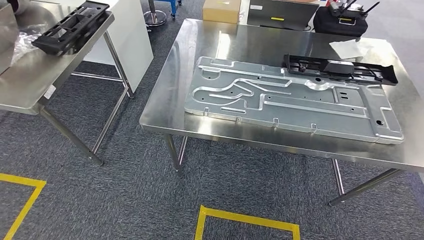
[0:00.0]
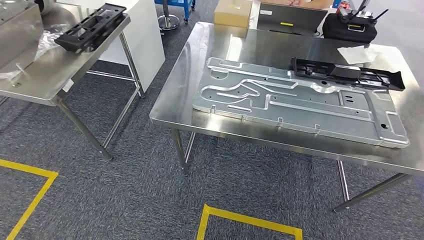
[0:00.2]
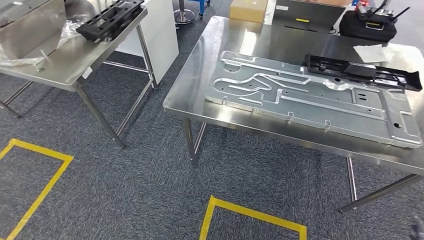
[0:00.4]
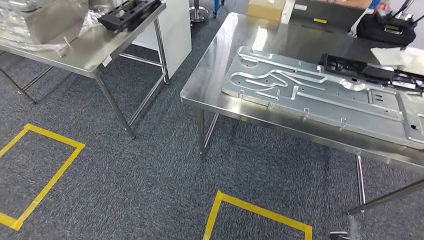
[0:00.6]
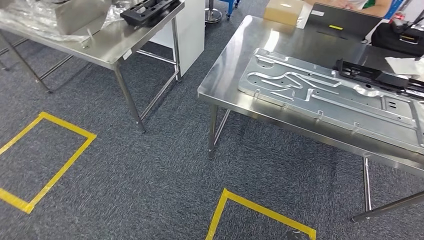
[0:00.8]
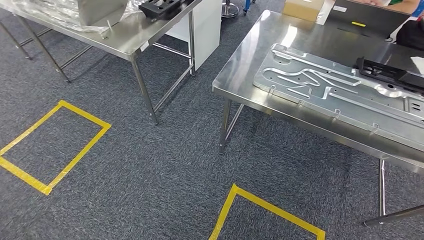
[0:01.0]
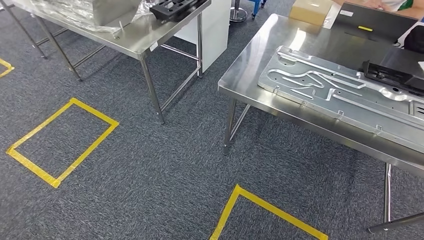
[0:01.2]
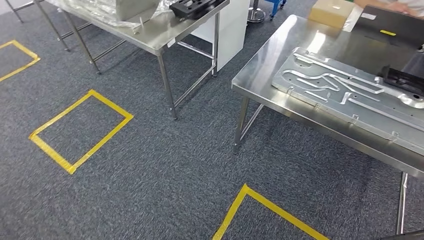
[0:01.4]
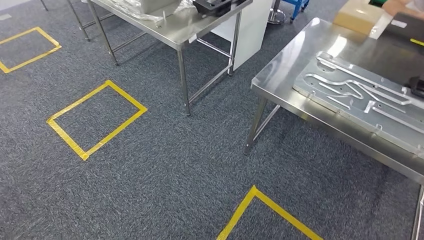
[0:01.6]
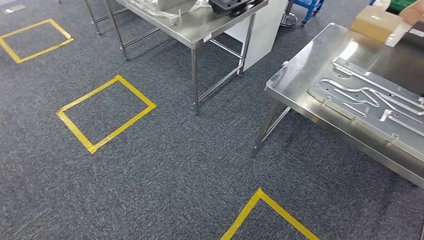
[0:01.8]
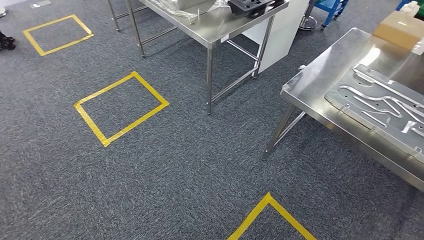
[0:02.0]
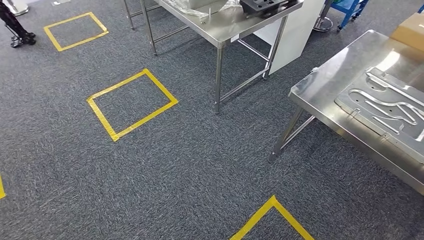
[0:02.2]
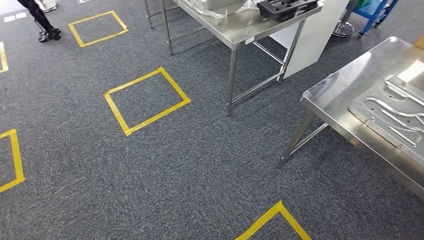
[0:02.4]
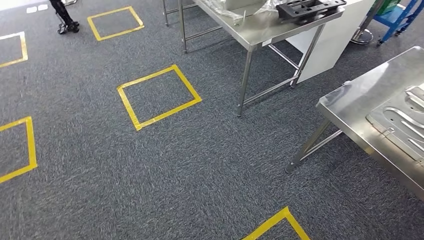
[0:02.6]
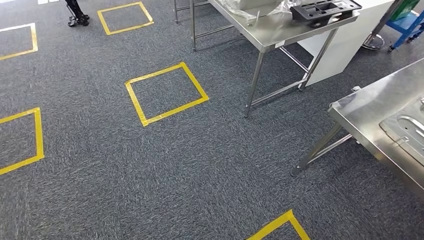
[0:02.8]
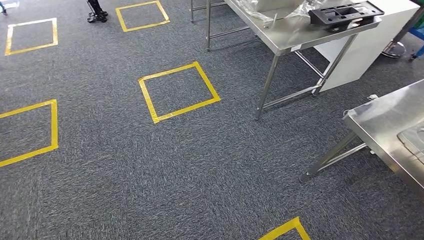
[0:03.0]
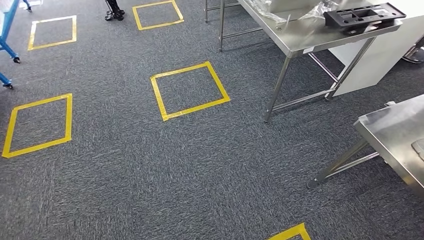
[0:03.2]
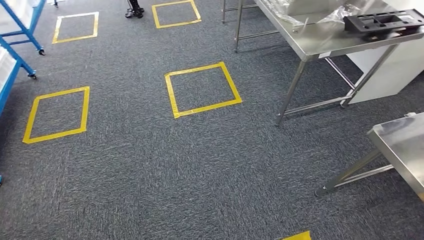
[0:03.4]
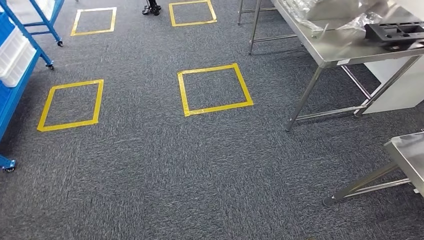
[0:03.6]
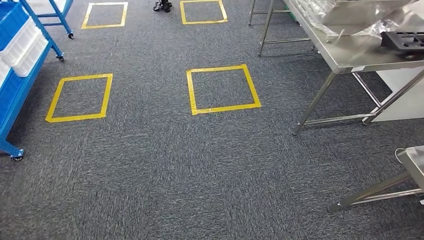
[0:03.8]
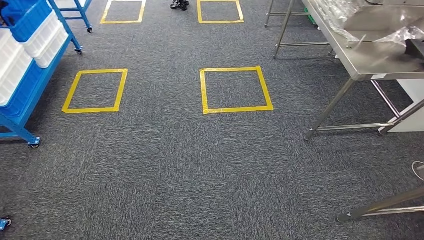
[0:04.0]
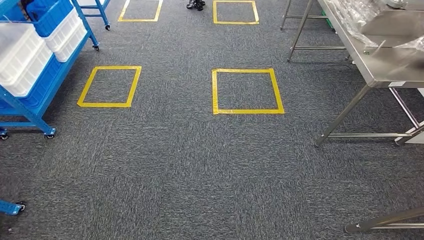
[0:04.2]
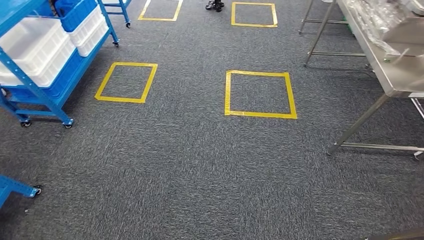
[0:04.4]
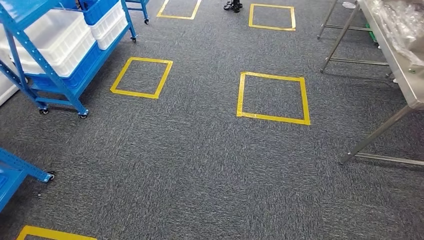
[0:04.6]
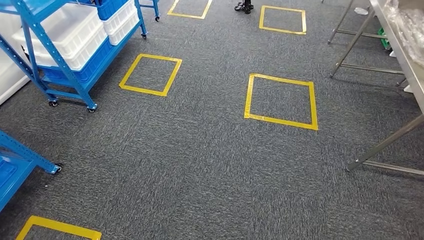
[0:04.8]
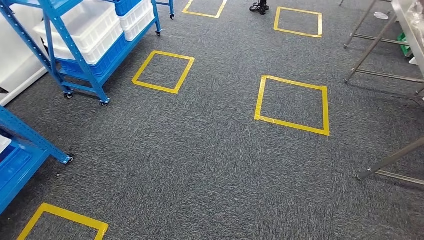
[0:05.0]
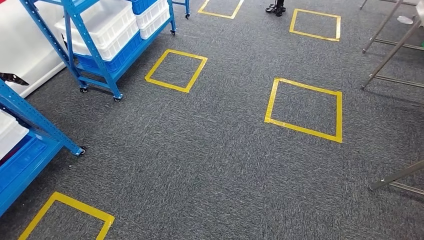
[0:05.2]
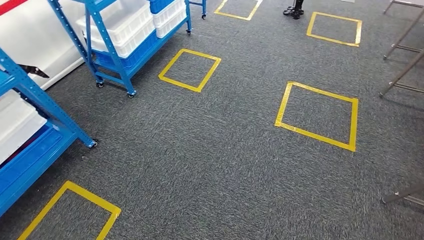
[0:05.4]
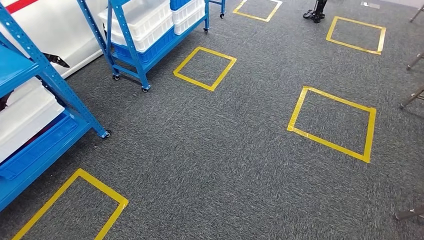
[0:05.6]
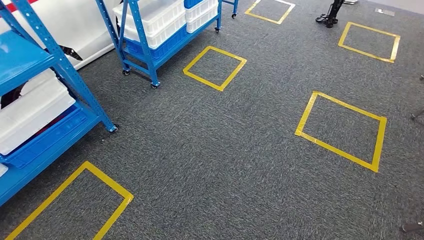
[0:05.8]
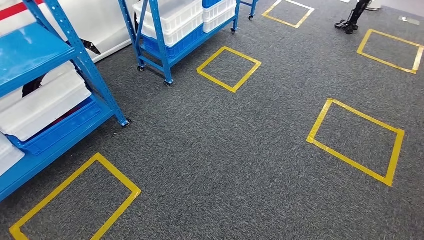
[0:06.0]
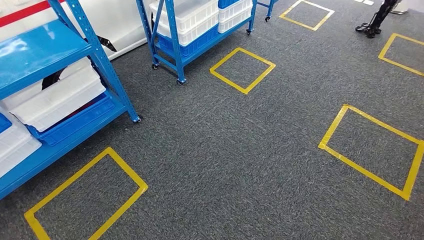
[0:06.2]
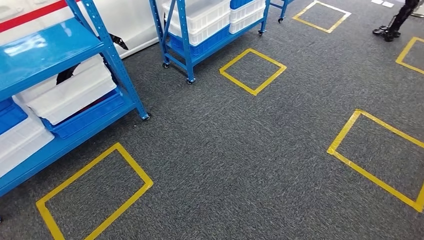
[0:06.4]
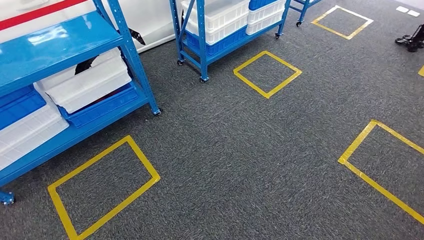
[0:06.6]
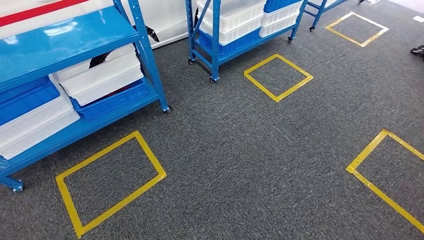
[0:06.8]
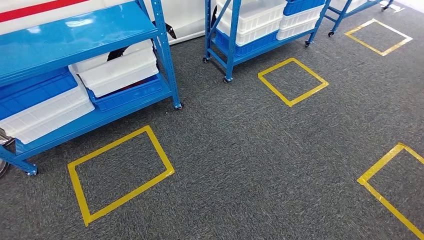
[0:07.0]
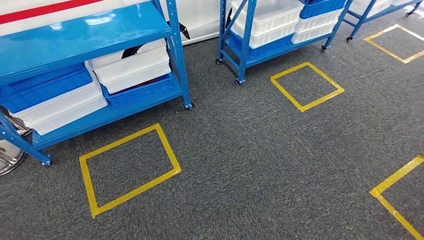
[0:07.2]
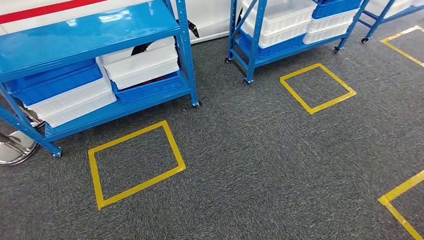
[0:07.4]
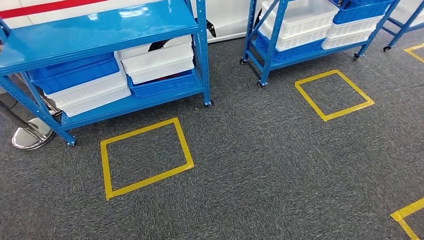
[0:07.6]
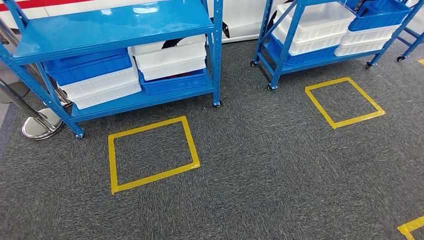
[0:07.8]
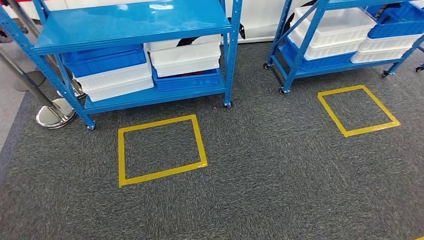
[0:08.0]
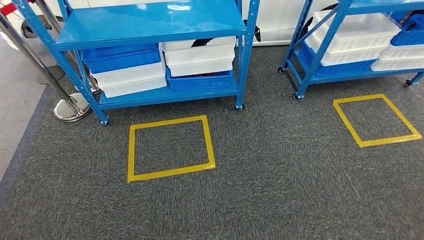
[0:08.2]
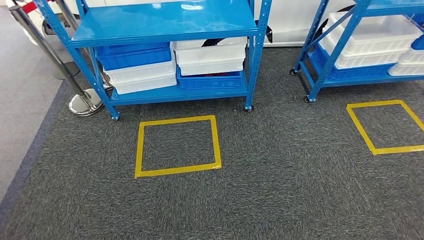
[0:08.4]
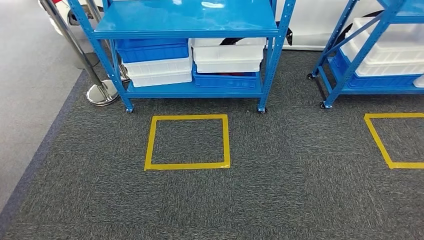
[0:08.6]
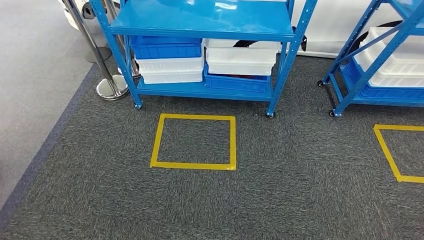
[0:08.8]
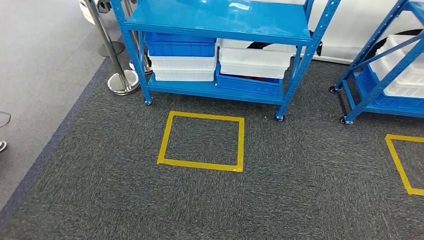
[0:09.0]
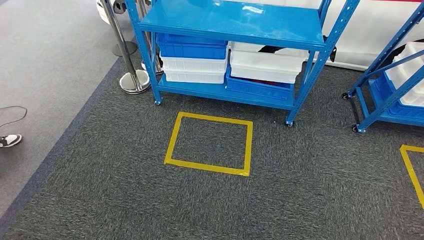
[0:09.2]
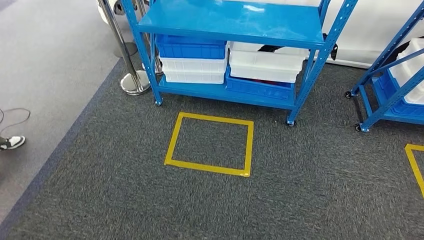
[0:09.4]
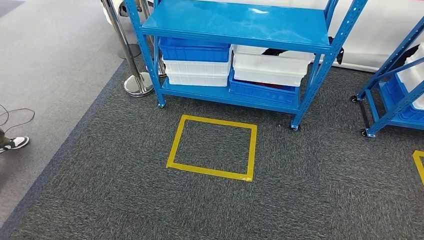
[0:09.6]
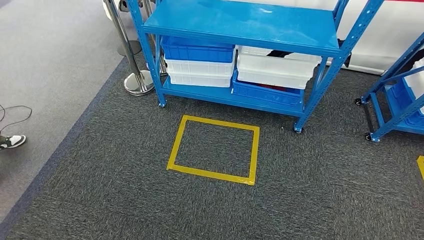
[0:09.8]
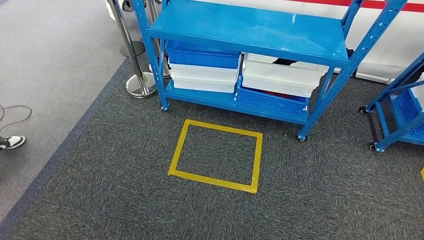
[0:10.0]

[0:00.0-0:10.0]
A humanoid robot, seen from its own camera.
Step, 0:00.0 to 0:10.0: Move to the initial position of the shelf.

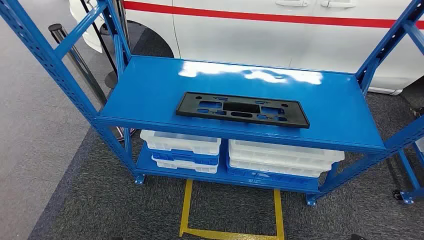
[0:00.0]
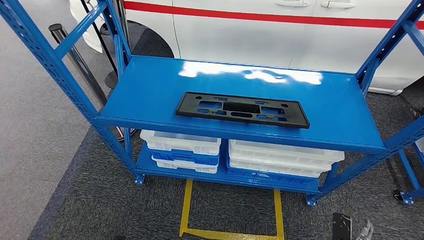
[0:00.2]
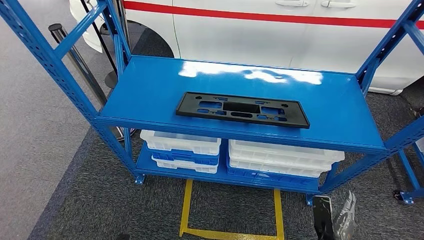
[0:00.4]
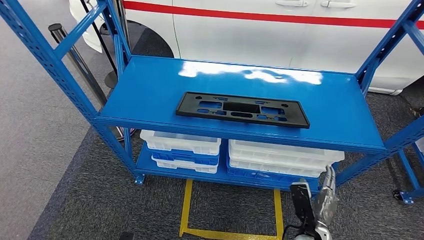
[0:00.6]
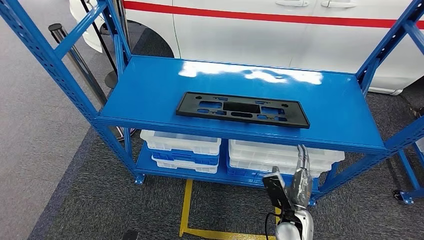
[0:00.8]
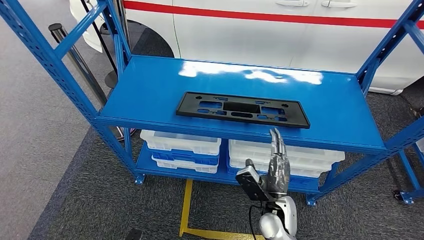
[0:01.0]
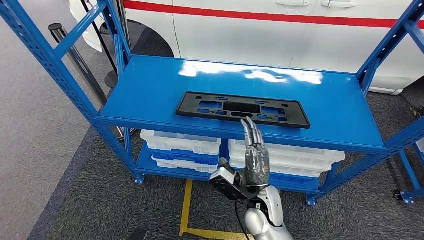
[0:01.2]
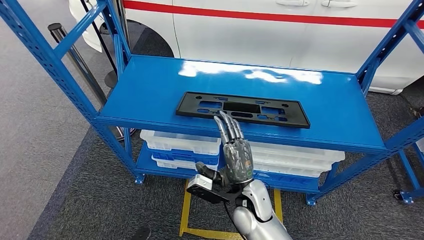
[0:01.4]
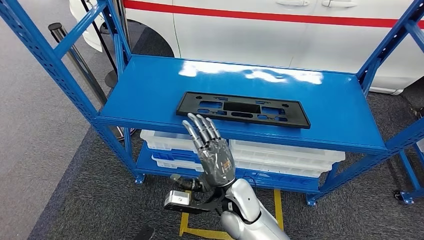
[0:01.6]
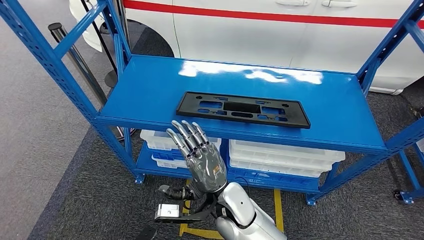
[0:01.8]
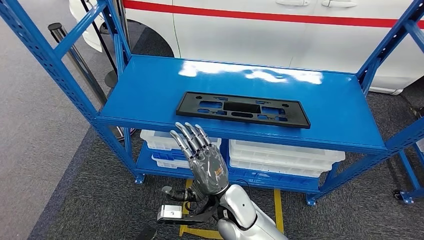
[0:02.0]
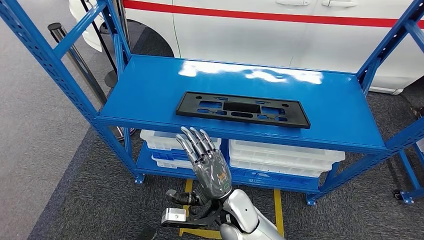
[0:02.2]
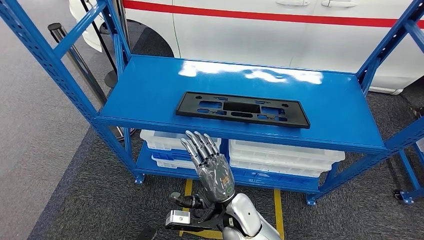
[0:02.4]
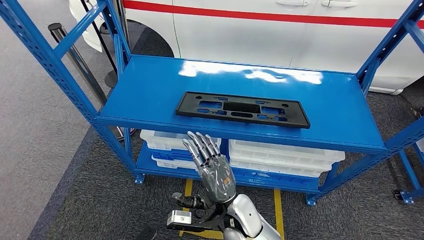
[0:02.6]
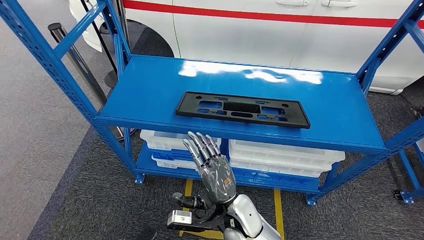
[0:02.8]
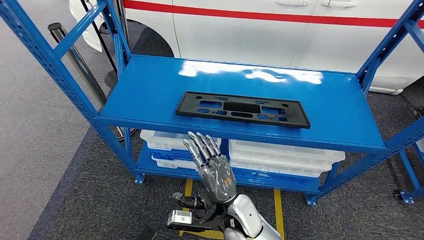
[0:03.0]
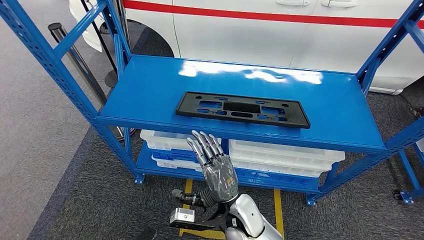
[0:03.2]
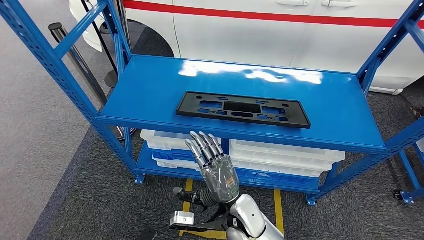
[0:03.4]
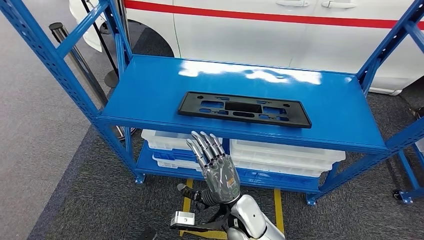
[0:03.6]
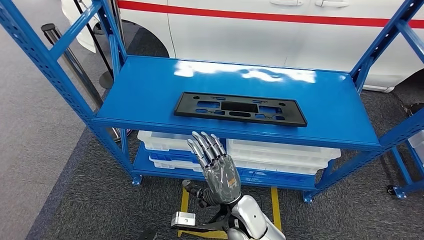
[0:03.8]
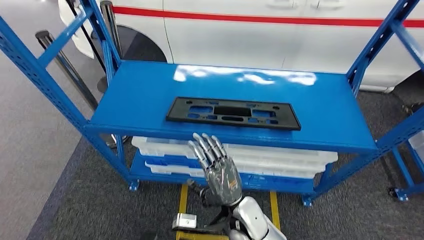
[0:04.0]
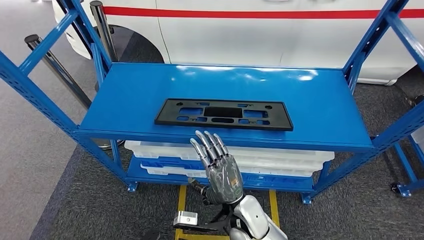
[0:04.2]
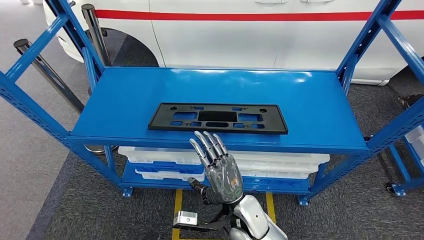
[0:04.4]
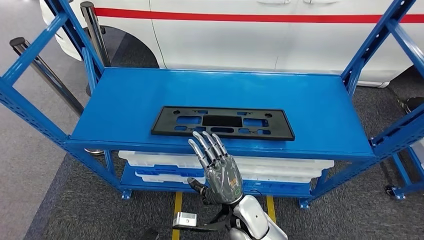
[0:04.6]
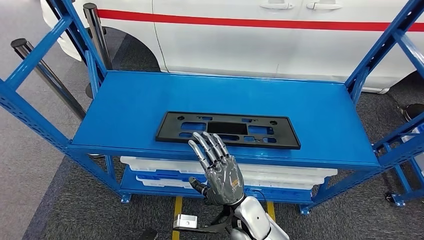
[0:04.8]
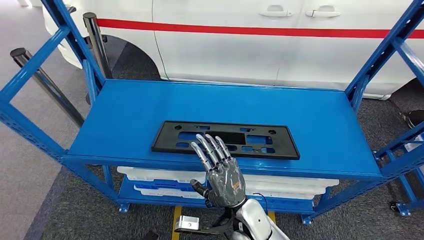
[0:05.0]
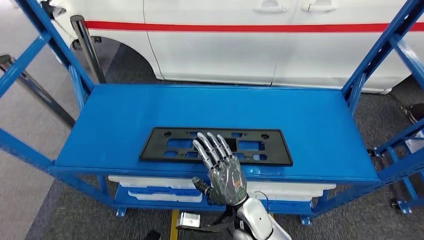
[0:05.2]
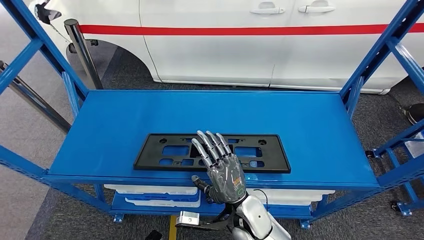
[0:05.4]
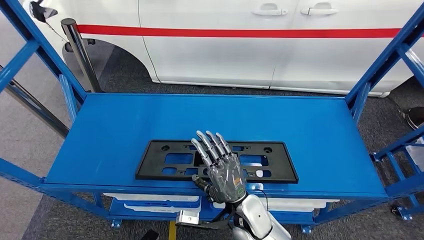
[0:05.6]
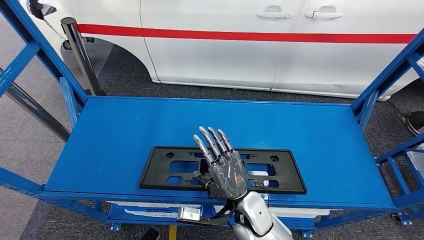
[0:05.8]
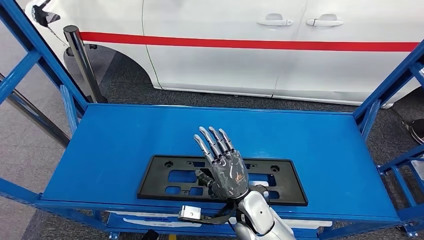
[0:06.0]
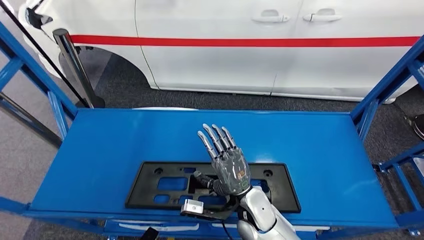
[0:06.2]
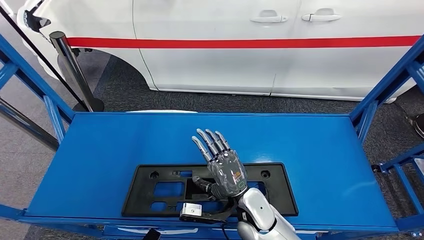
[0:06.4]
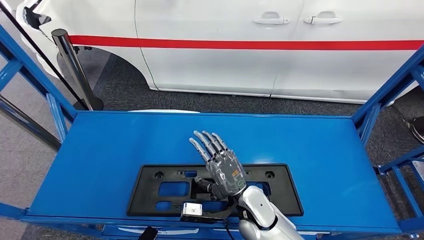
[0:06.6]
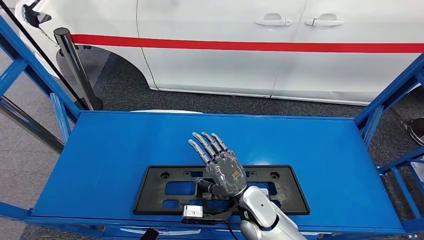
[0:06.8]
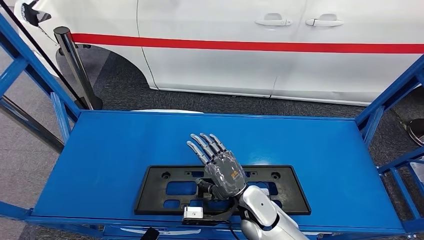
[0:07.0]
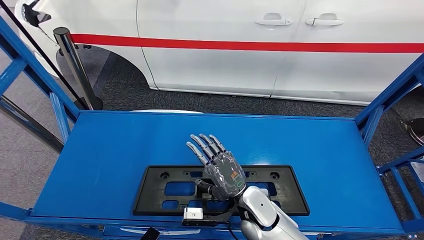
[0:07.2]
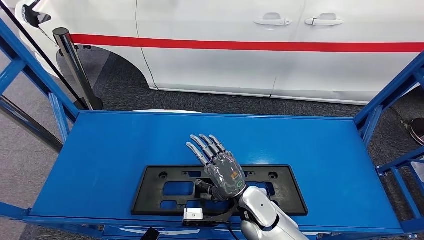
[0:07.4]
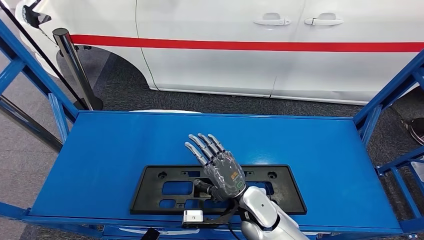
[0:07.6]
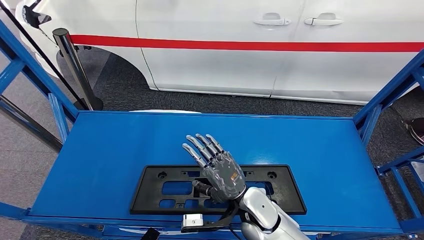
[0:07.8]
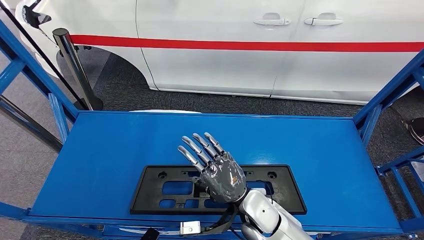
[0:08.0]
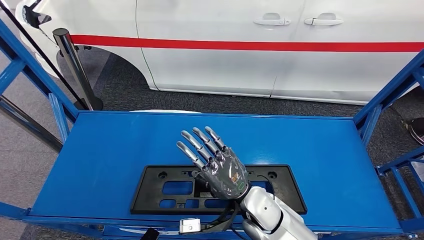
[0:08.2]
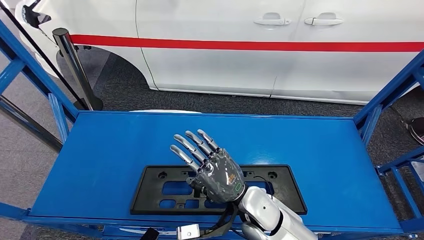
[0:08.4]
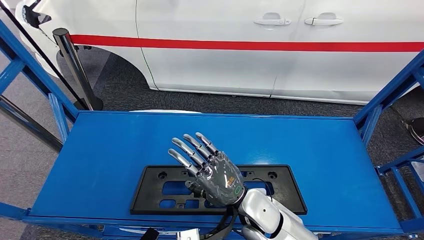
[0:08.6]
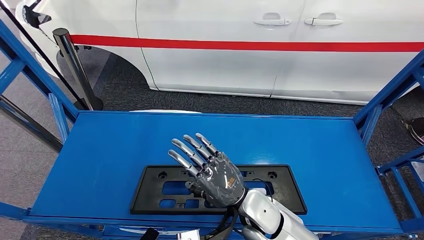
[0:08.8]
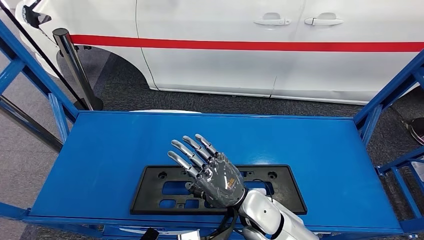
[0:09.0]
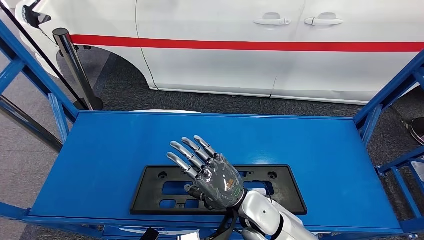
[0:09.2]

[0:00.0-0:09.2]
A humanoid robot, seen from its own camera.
0:01.6 to 0:03.0: The hands move only a little.
0:07.6 to 0:09.2: There are only small adjustments of the hands.
